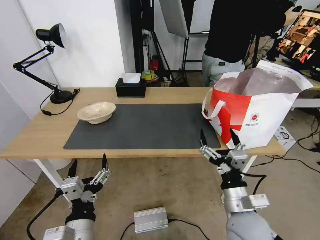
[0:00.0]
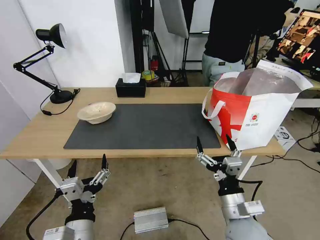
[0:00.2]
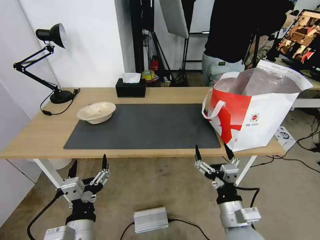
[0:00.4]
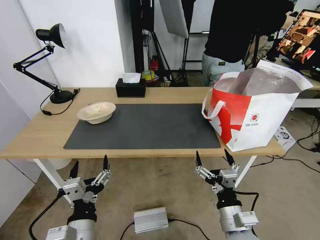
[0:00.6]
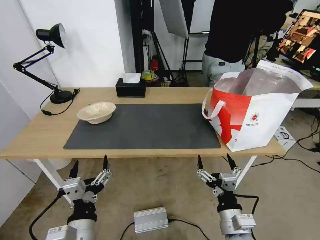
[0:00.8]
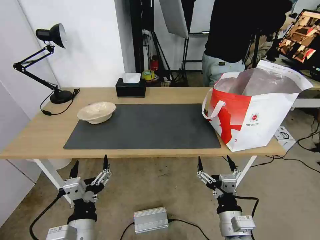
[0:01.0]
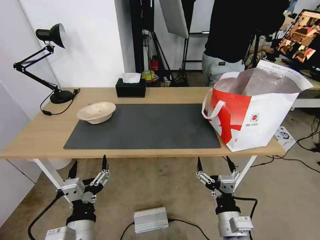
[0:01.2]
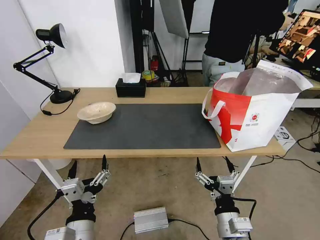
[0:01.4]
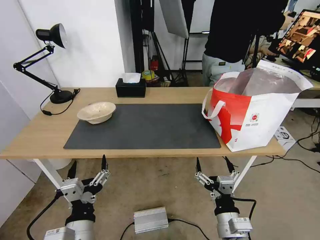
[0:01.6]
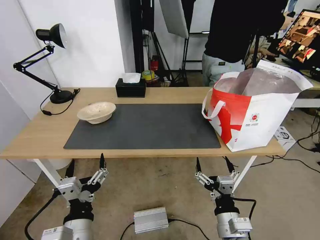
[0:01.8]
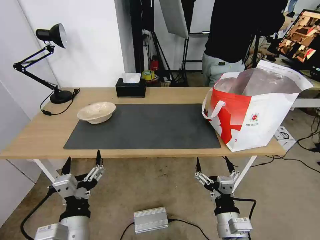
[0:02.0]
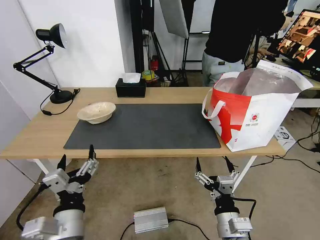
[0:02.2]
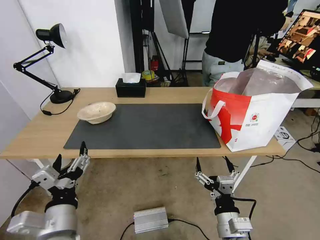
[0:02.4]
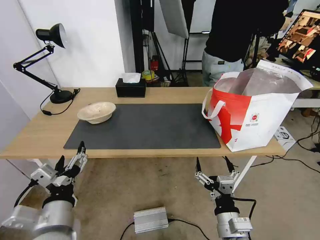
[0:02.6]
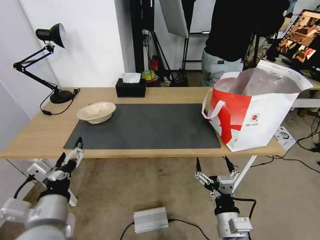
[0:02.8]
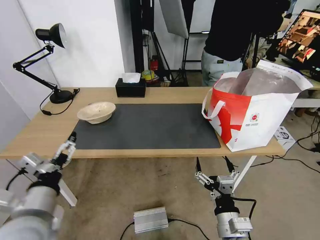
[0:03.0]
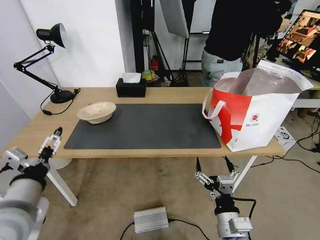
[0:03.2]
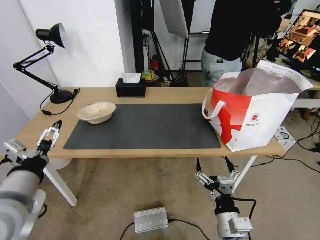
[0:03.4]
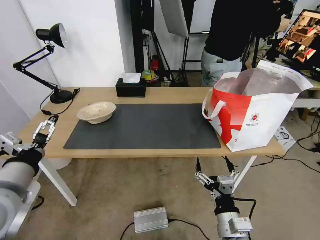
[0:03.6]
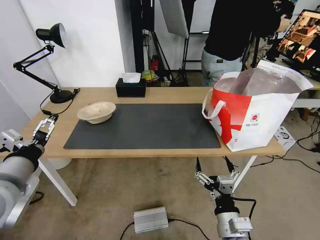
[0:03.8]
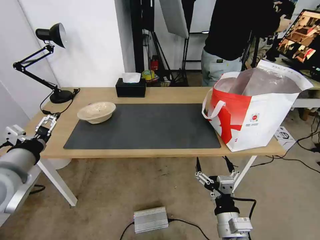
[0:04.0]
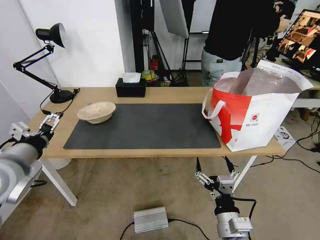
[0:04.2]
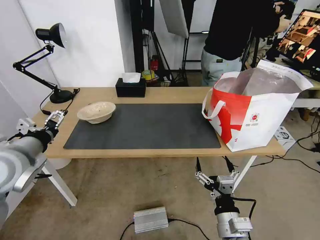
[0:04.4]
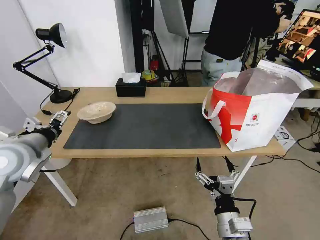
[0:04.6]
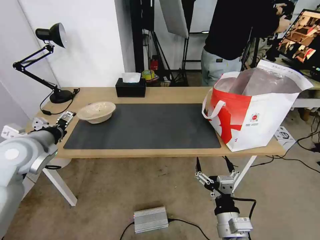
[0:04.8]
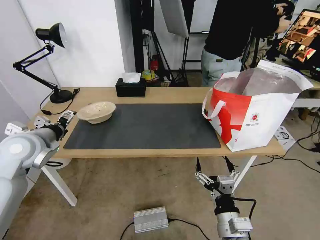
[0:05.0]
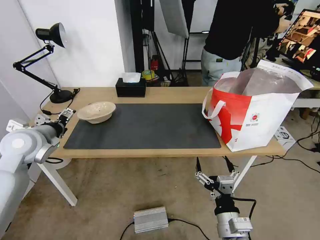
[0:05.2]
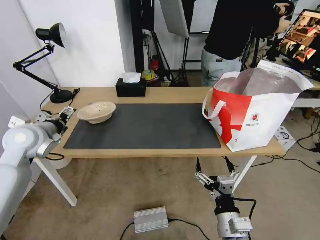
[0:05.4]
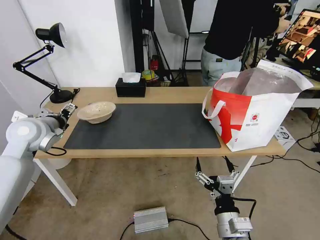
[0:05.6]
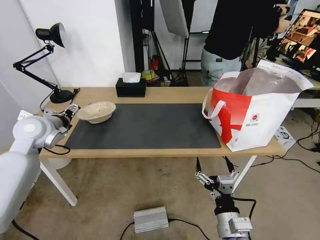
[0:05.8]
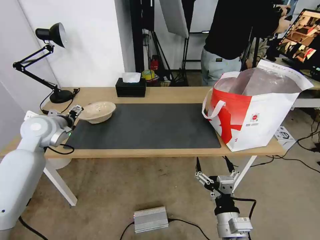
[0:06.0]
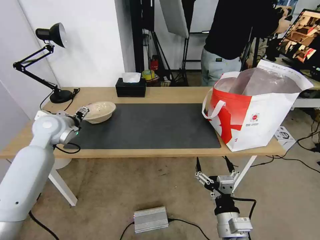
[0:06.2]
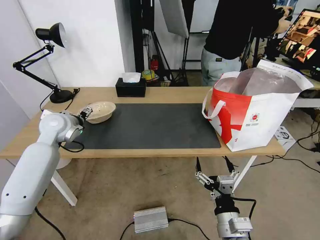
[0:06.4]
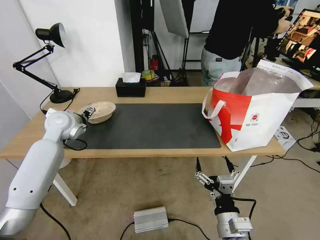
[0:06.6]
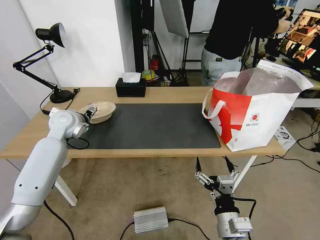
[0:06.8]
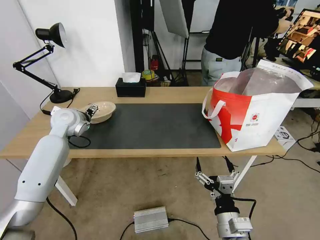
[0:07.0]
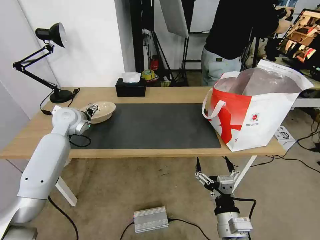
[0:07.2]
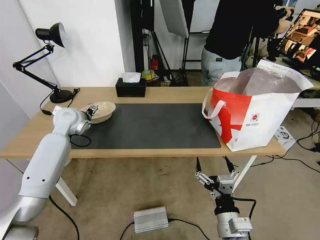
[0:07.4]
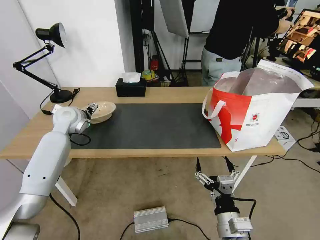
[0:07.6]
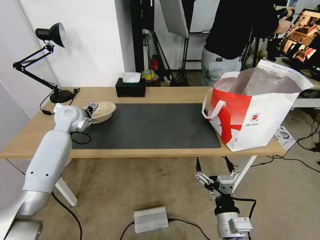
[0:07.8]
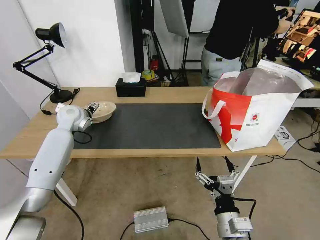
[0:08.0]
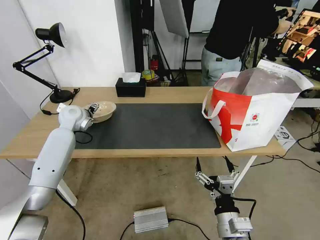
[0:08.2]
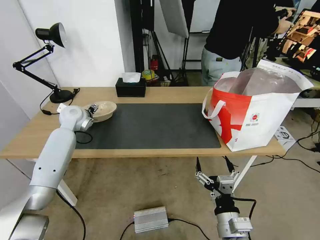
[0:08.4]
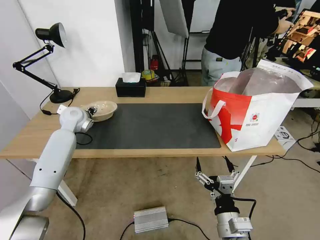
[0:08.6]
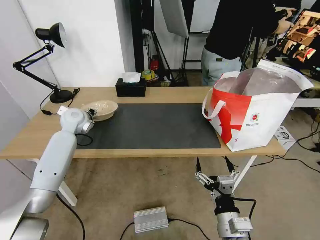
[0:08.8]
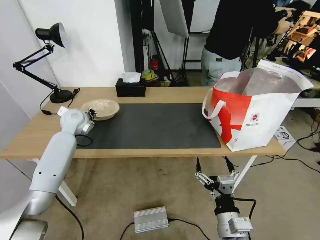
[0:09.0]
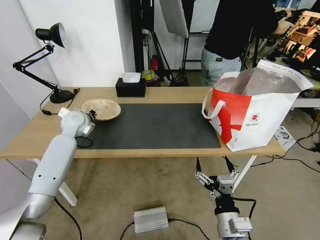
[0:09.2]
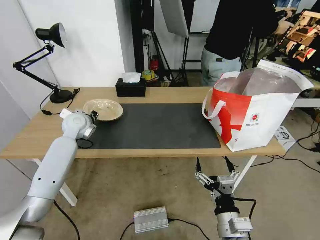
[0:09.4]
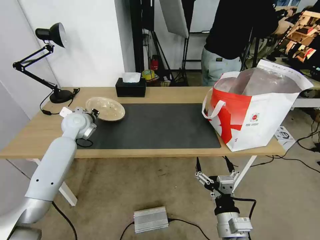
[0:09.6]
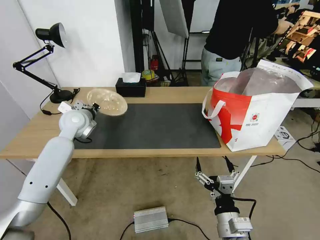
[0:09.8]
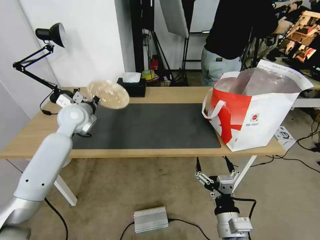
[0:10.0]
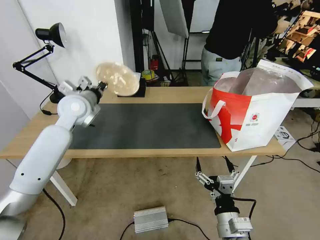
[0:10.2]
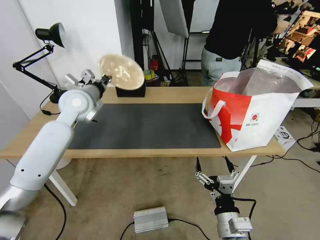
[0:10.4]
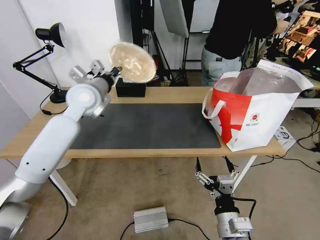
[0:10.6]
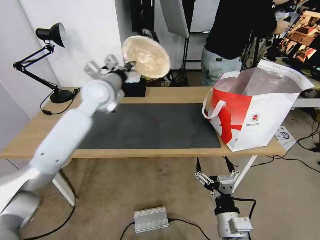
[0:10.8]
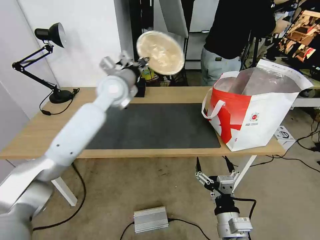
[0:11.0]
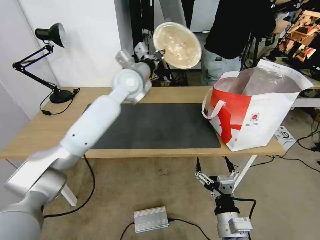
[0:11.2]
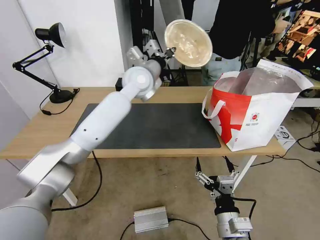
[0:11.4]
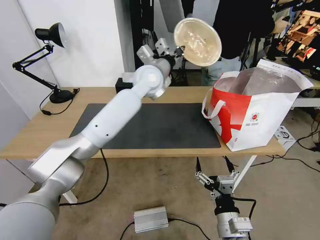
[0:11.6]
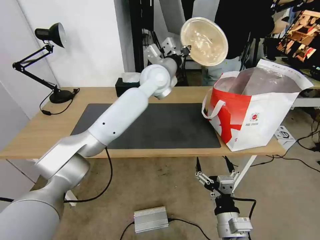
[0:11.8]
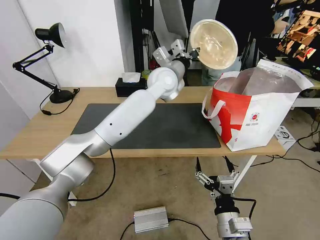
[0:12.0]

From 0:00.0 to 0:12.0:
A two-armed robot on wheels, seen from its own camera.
Task of the whole recording: Pick up the trash from the table and place it into the takeout bag.
From 0:00.0 to 0:01.6: The right gripper travels backward by approximately 5 cm.
From 0:01.6 to 0:03.0: The left gripper heads to the left, upward and forward, covering some 15 cm.
From 0:03.0 to 0:04.4: The left gripper moves forward, to the left and upward, about 15 cm.
From 0:04.4 to 0:06.0: The left gripper travels forward by approximately 15 cm.
From 0:06.0 to 0:07.6: The left gripper shifts some 10 cm forward.
From 0:07.6 to 0:09.0: The left gripper closes.
From 0:09.0 to 0:10.4: The left gripper moves upward and to the right, some 15 cm.
From 0:10.4 to 0:12.0: The left gripper goes approximately 25 cm to the right.

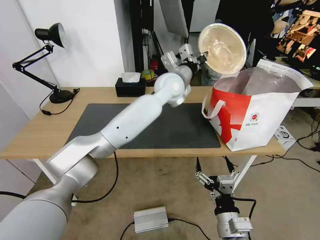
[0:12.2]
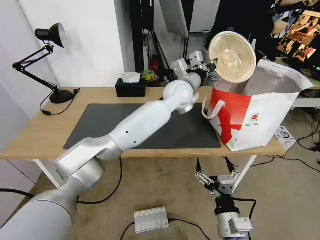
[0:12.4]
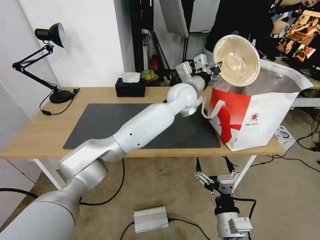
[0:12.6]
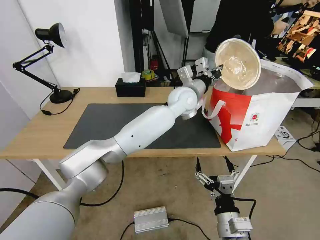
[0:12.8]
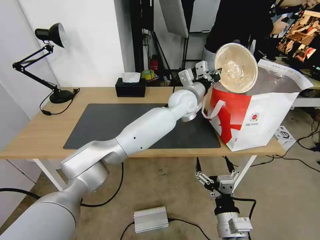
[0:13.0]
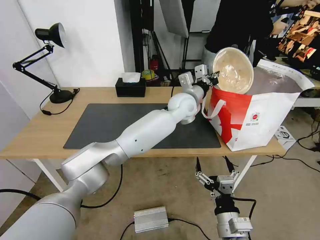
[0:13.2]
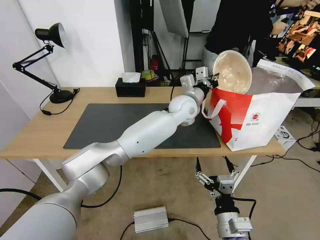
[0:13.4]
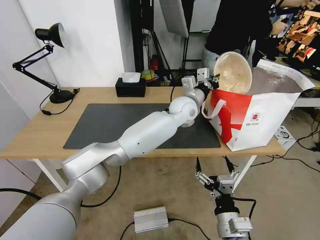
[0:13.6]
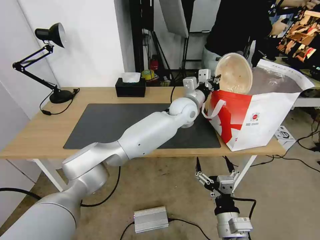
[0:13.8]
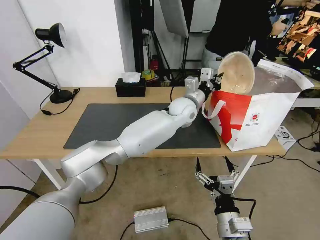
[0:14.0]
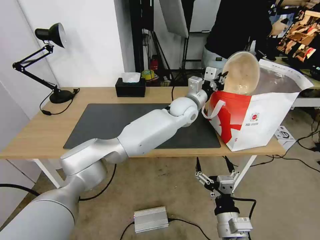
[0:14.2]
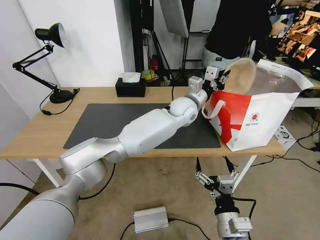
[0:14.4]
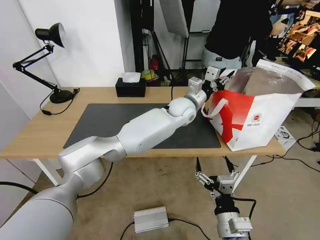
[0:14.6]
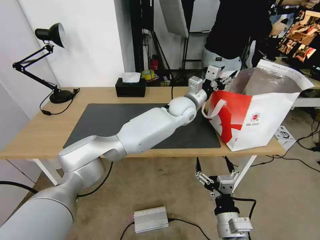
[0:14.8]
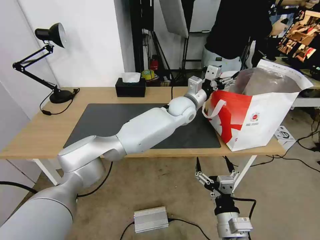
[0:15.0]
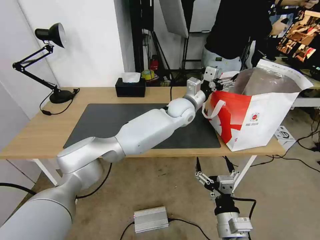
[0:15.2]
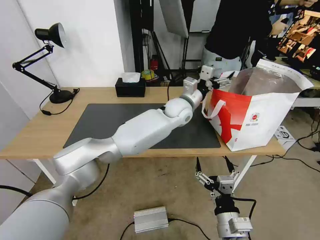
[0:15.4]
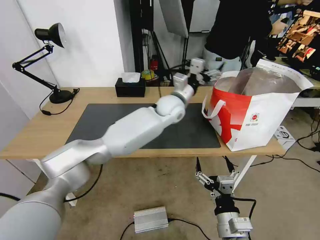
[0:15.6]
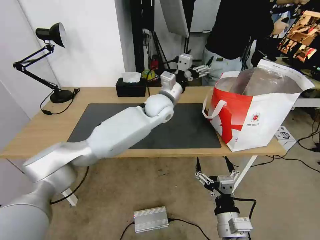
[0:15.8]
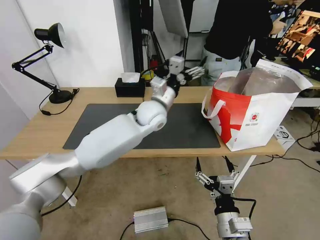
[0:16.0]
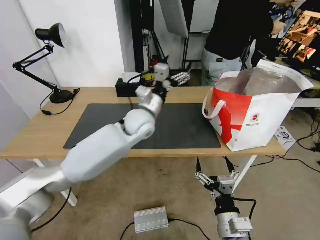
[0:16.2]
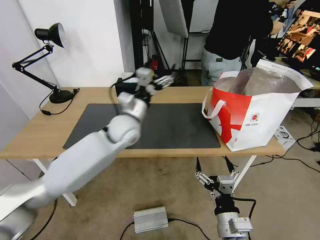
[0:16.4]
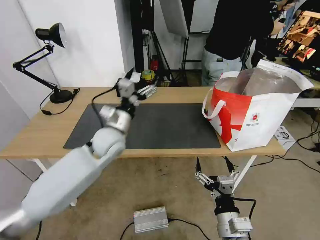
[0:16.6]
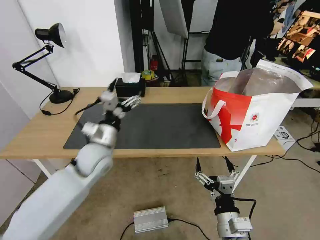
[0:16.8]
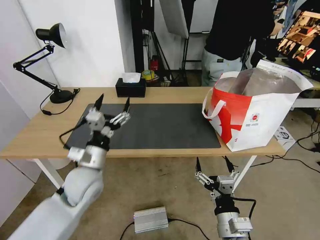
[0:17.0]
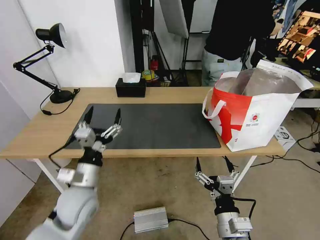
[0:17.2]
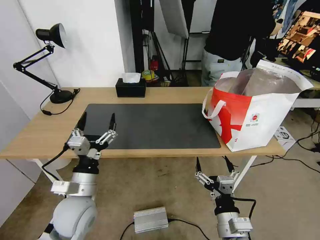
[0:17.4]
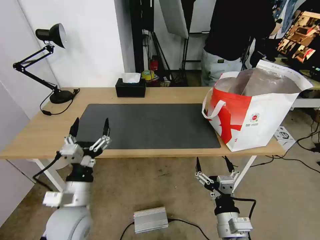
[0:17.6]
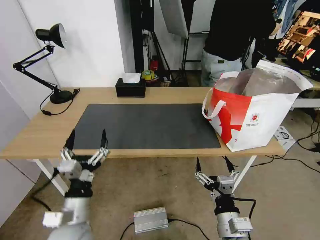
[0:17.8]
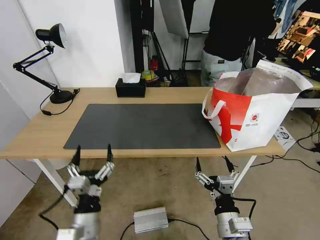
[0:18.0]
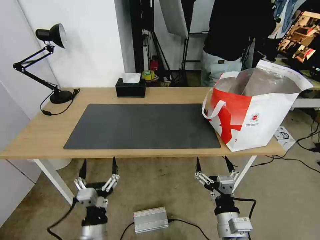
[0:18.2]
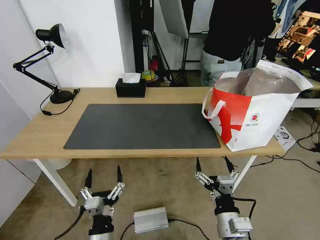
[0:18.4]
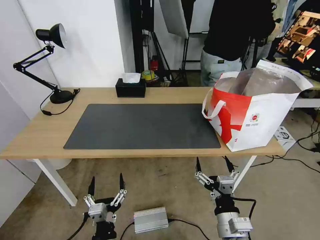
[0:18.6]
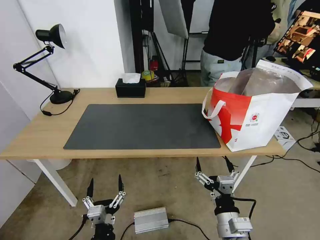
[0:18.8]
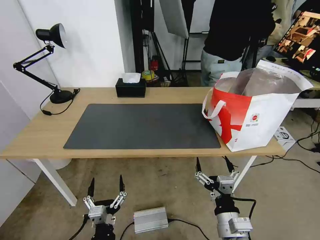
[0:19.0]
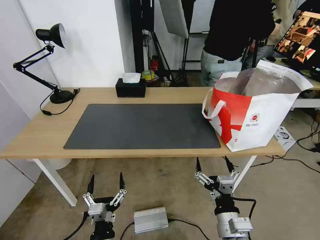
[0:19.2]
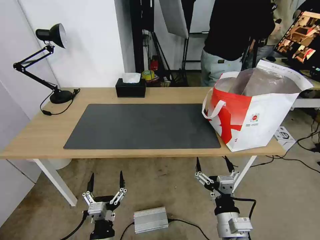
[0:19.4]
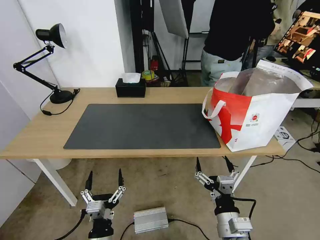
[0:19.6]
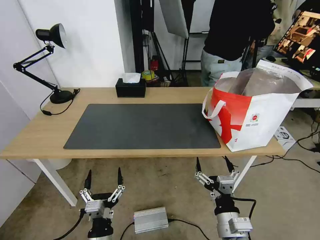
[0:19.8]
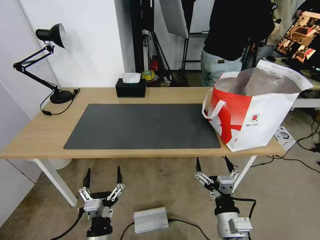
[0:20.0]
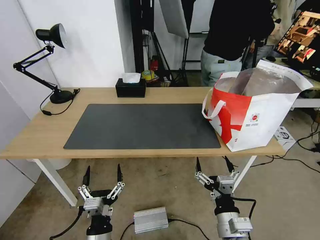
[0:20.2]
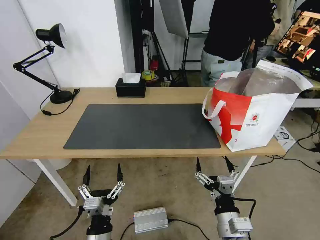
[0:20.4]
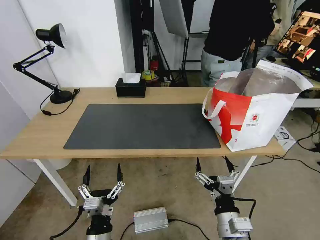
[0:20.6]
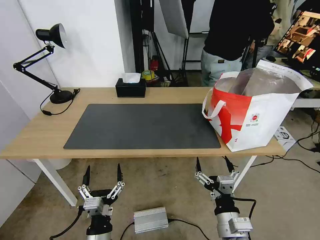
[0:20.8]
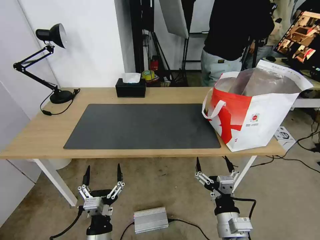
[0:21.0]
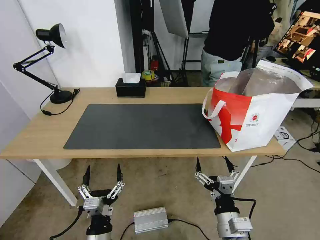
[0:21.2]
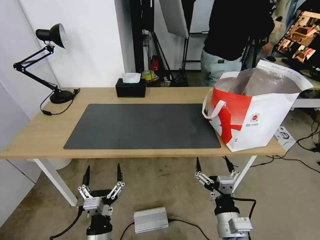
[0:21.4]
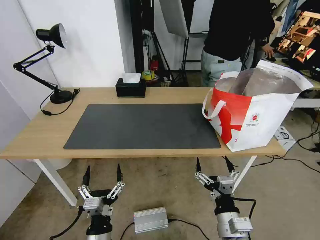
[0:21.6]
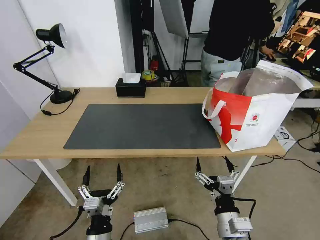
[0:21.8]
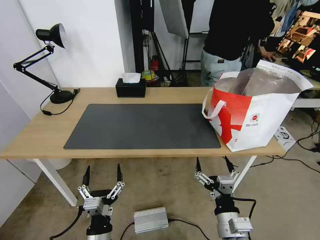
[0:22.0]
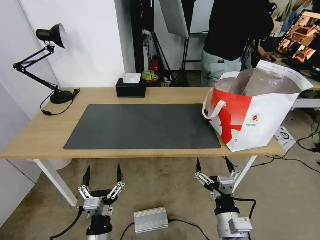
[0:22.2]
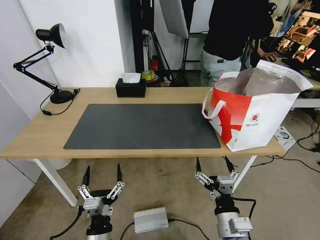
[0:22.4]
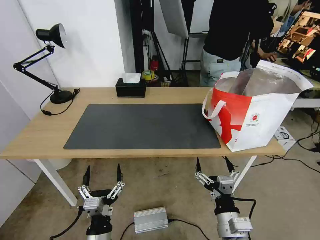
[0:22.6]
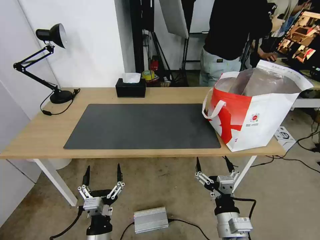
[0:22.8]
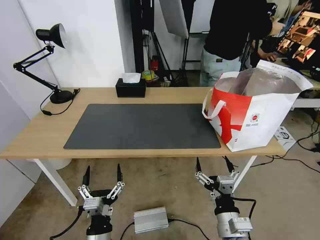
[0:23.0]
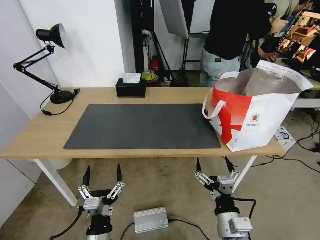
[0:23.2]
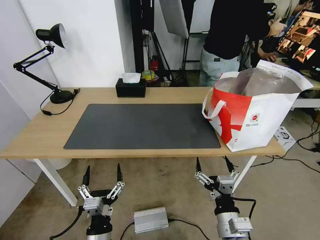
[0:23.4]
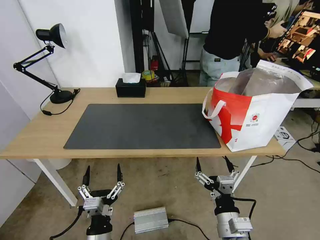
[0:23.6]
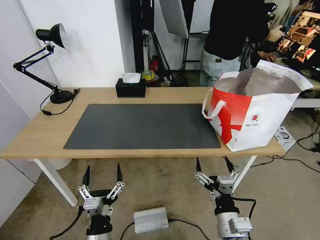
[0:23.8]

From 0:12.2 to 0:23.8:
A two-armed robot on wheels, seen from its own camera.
Task of the whole recording: Pick up the trash from the table and place it into the takeout bag.
From 0:12.2 to 0:13.6: The left gripper shifts roughly 10 cm downward.
From 0:13.6 to 0:15.0: The left gripper opens its fingers.
From 0:15.0 to 0:16.6: The left gripper is displaced to the left and backward by some 30 cm.
From 0:16.6 to 0:18.0: The left gripper goes roughly 30 cm backward and downward.
From 0:18.0 to 0:19.4: The left gripper travels downward and backward by about 10 cm.
From 0:19.4 to 0:21.0: The grippers move only a little.
From 0:21.0 to 0:23.8: Both grippers stay put.
